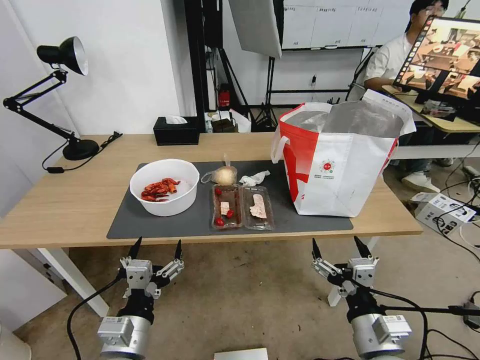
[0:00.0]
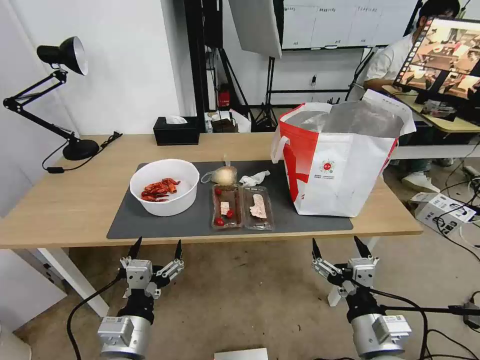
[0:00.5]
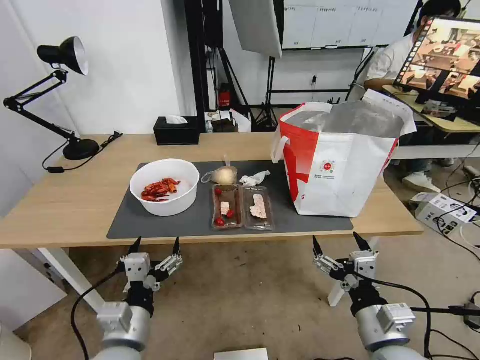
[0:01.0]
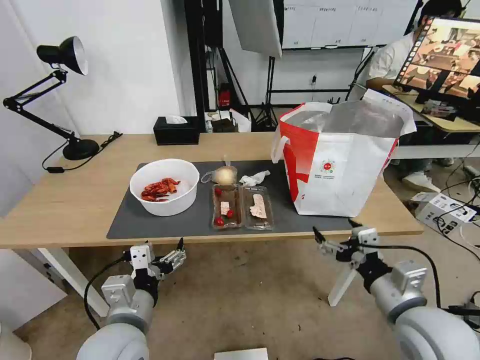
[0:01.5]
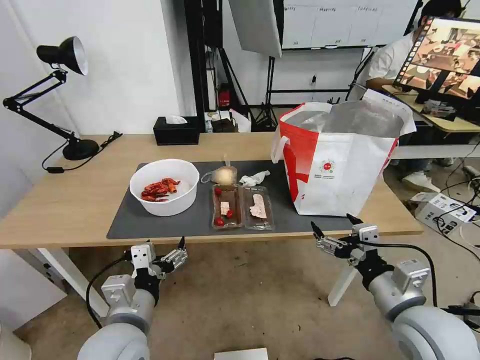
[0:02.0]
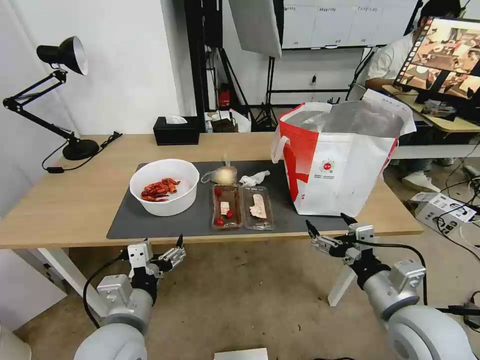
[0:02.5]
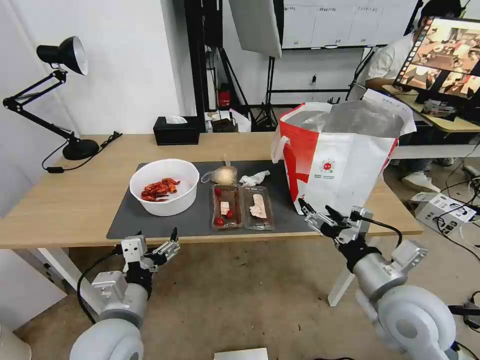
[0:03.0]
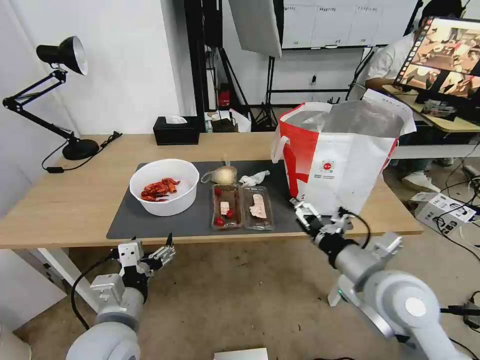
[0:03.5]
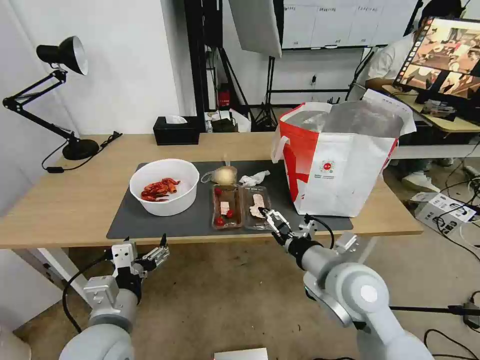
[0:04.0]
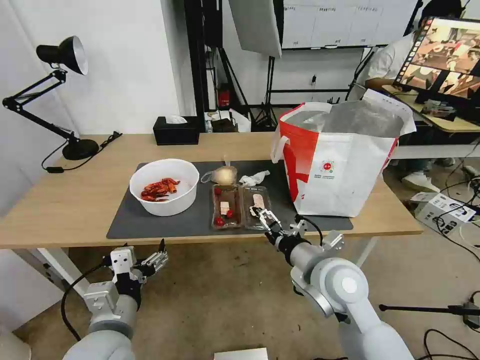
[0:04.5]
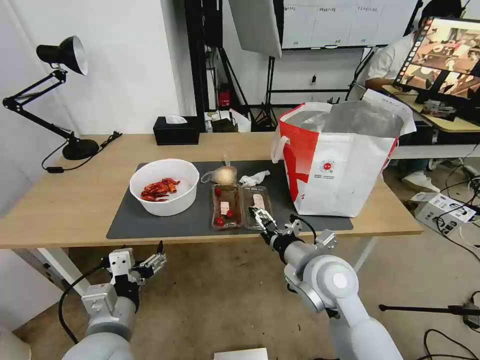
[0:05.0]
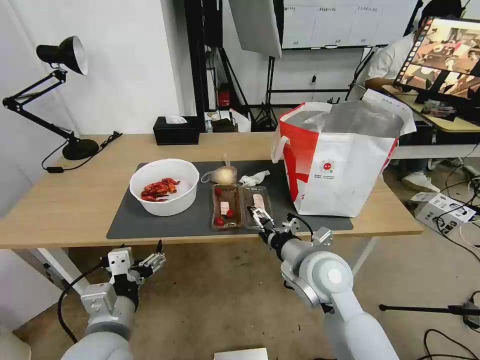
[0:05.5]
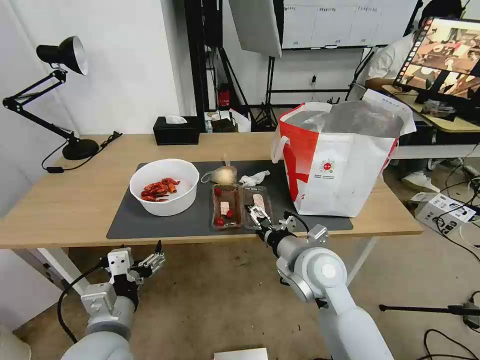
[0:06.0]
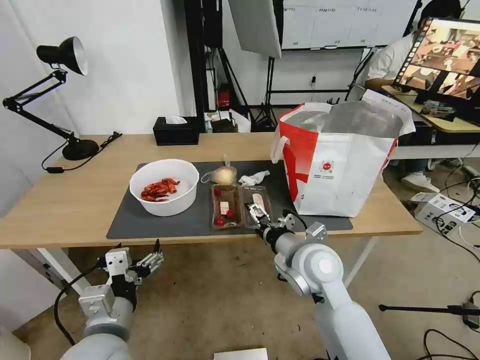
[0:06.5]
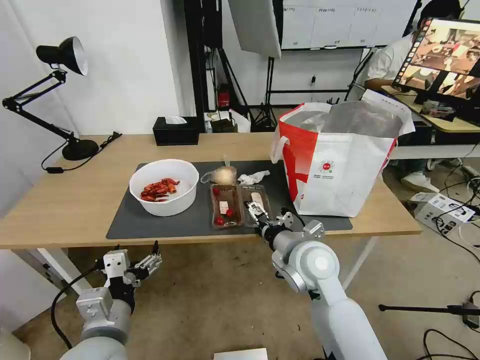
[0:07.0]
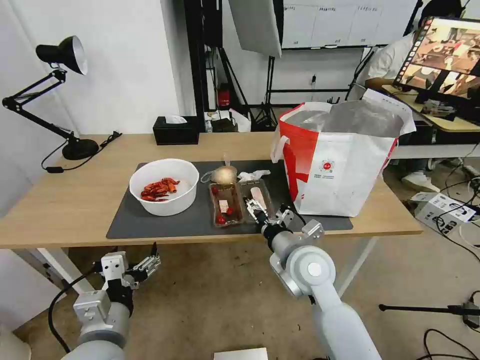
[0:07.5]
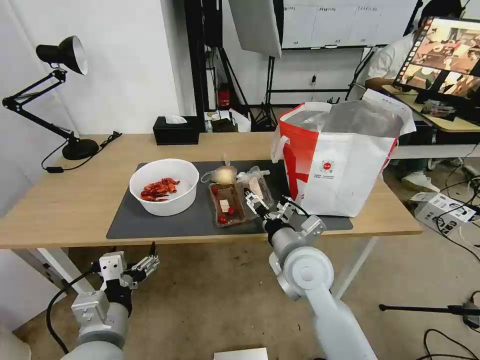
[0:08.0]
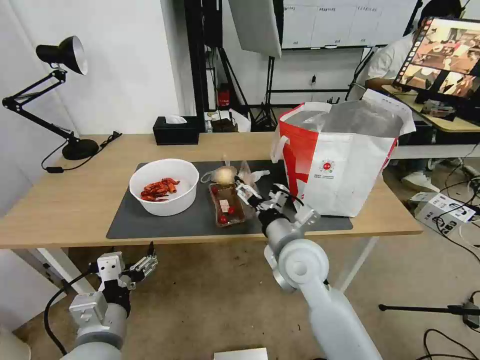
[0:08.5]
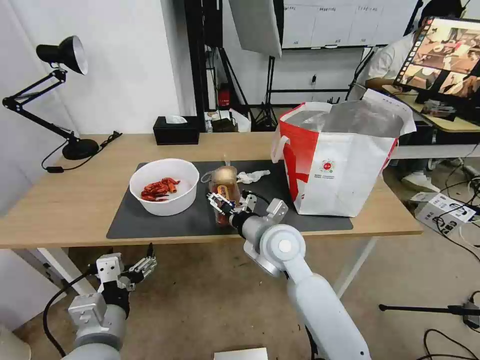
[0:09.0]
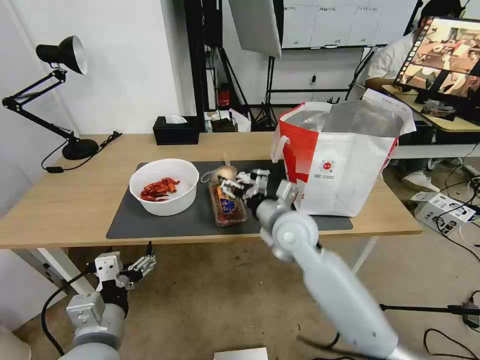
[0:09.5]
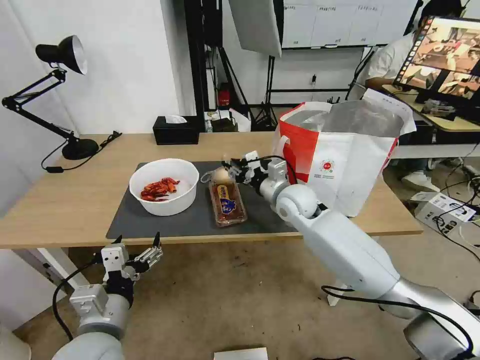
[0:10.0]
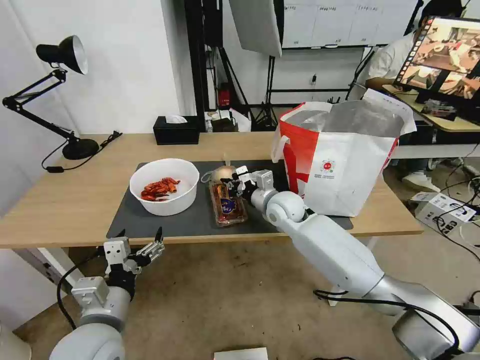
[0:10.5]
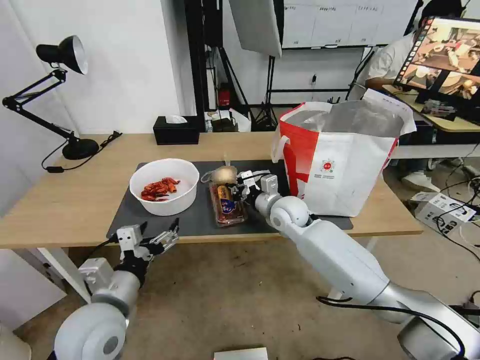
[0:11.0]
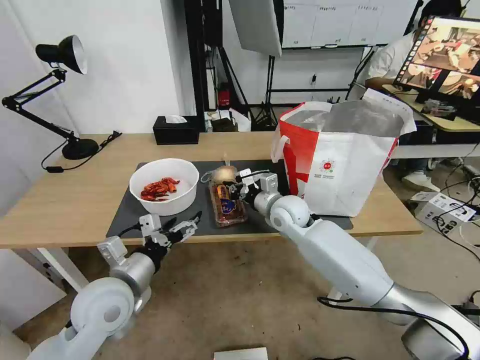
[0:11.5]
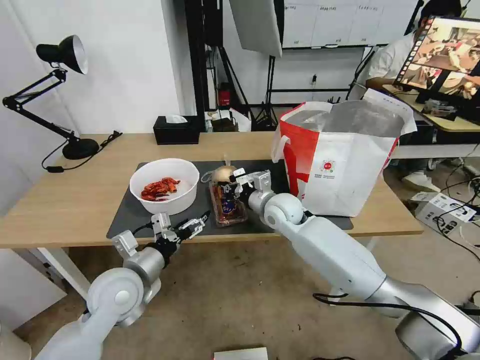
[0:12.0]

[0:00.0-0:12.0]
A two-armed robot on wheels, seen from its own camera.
Task of the whole recording: Pick up the trash from the table and place it into the takeout bag.
0:02.0 to 0:04.0: The right gripper goes roughly 10 cm to the left and forward.
0:04.0 to 0:06.0: The right gripper changes place by approximately 5 cm.
0:08.0 to 0:10.0: The right gripper heads forward, covering roughly 15 cm, and closes up.
0:10.0 to 0:12.0: The left gripper moves forward, approximately 10 cm.

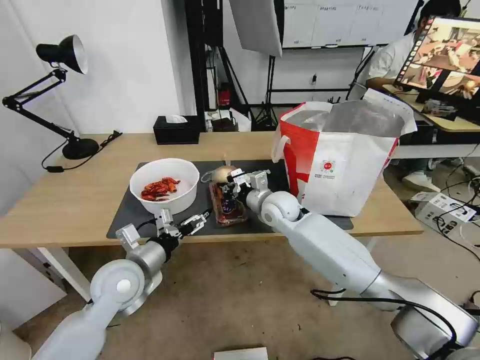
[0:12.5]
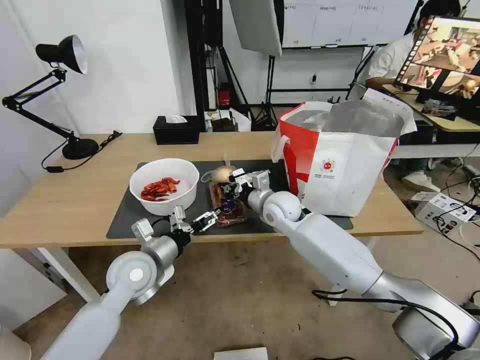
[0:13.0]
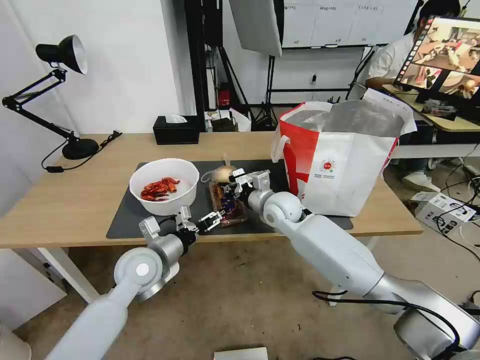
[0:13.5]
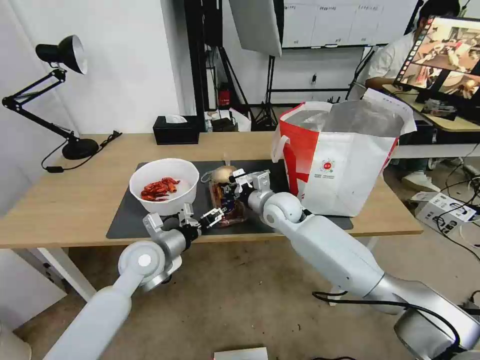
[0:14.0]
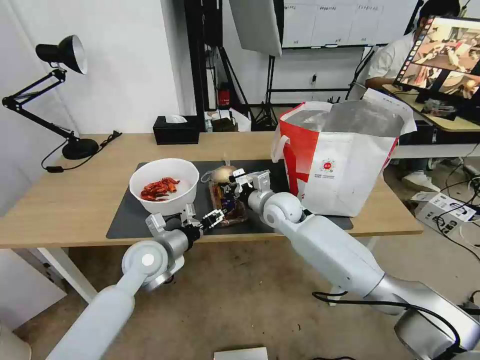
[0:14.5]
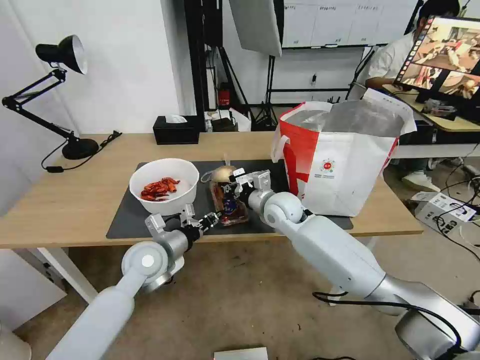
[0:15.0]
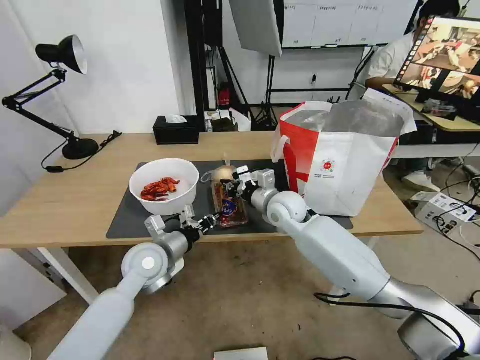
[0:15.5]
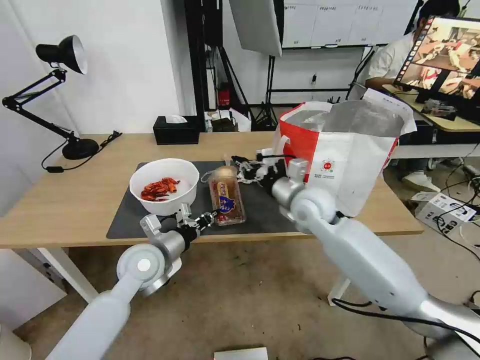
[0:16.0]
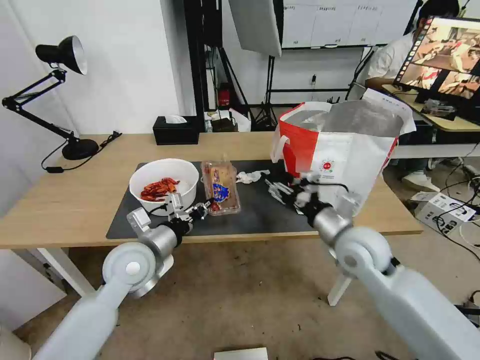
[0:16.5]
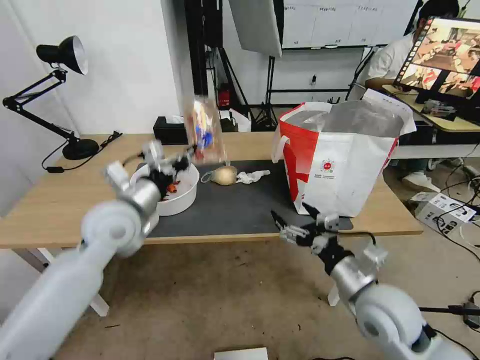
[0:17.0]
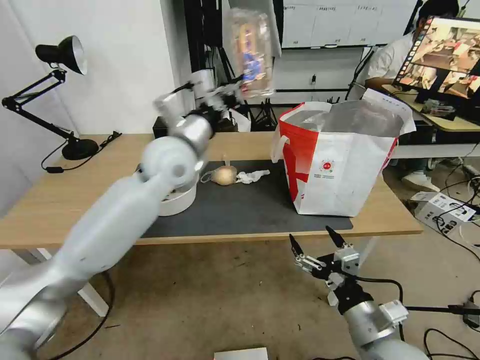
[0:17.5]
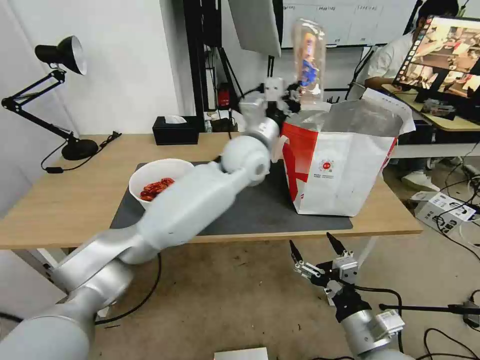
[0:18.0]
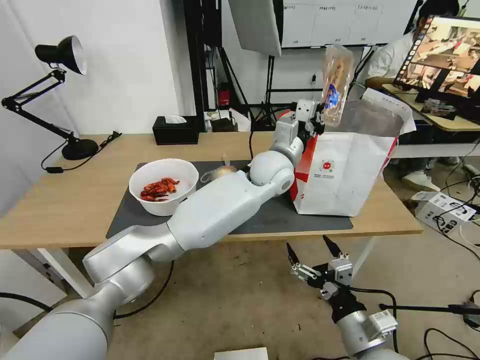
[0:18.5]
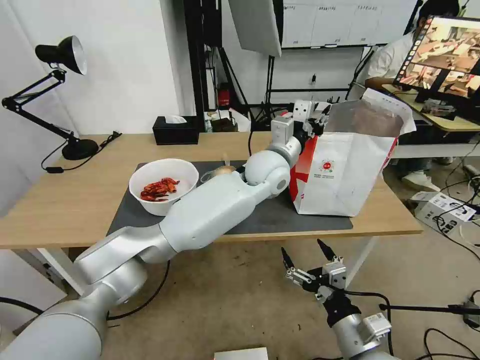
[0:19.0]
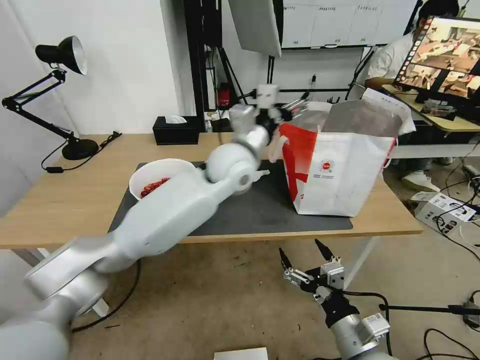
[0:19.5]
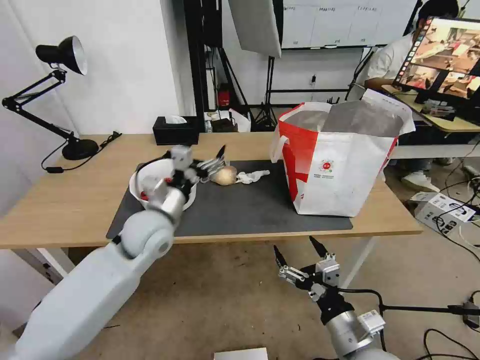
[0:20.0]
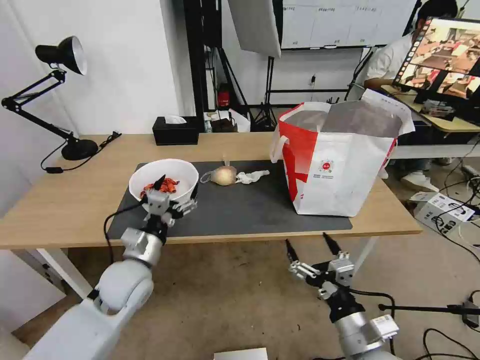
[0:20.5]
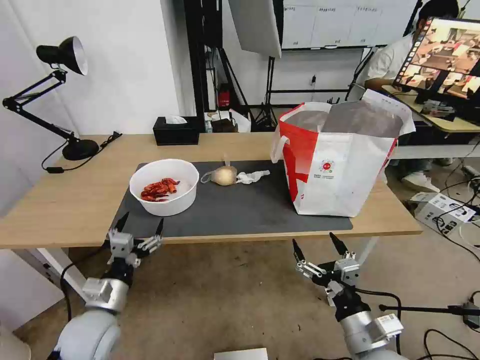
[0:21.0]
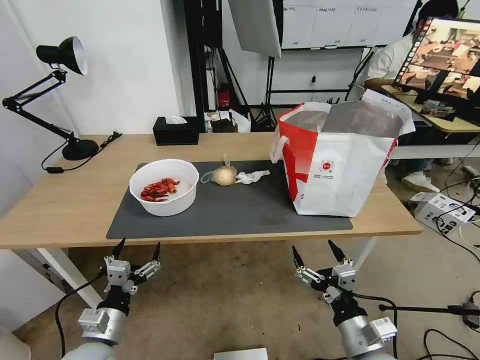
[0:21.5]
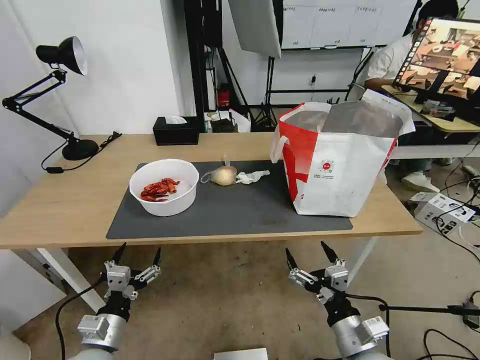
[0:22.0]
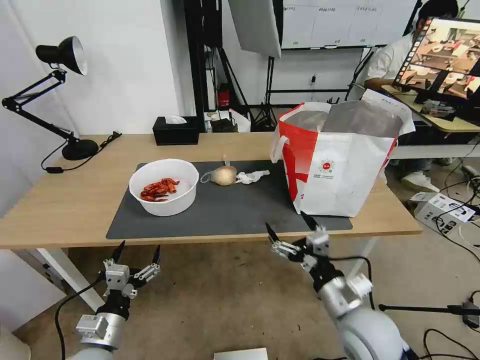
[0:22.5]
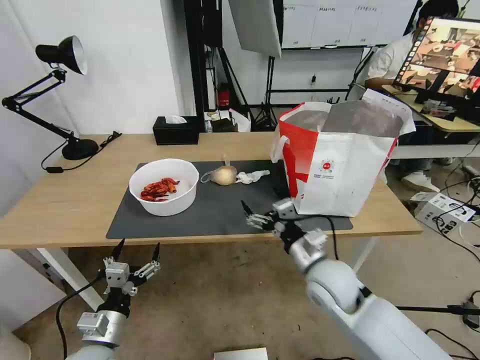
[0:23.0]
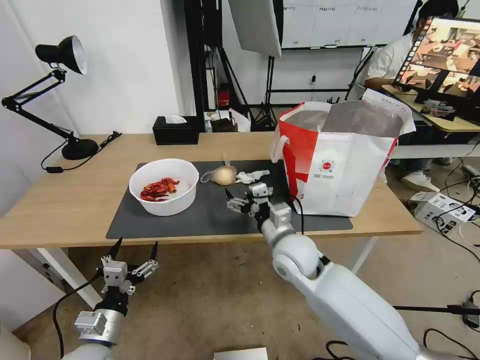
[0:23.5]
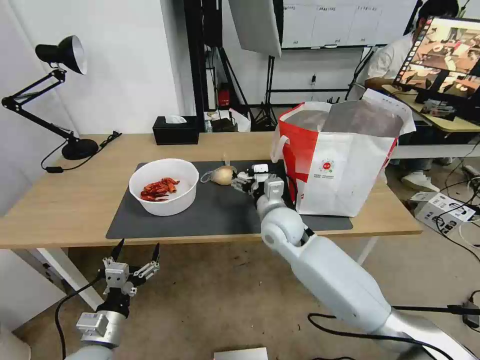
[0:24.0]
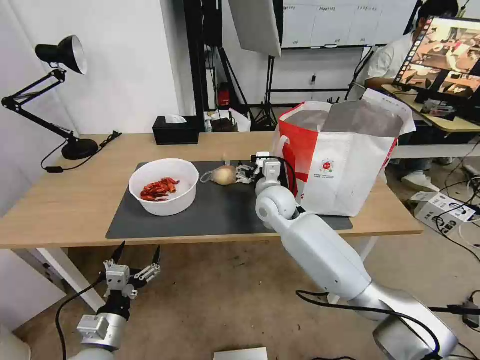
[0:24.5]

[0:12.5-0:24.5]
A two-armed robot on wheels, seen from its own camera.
Task of the whole recording: Pick up the trash from the table and place it into the takeout bag.
0:12.5 to 0:14.5: The left gripper travels forward by roughly 5 cm.
0:14.5 to 0:16.5: The left gripper shifts by approximately 5 cm, and closes; the right gripper is displaced backward and to the right by roughly 20 cm, and opens.
0:16.5 to 0:18.5: The right gripper moves backward and downward, roughly 20 cm. The left gripper travels to the right and forward by roughly 35 cm.
0:18.5 to 0:20.5: The left gripper heads to the left, backward and downward, covering about 40 cm, and opens up.
0:20.5 to 0:22.5: The left gripper travels backward, downward and to the left by some 20 cm. Meanwhile the right gripper goes some 5 cm forward.
0:22.5 to 0:24.5: The right gripper goes about 30 cm forward and to the left.

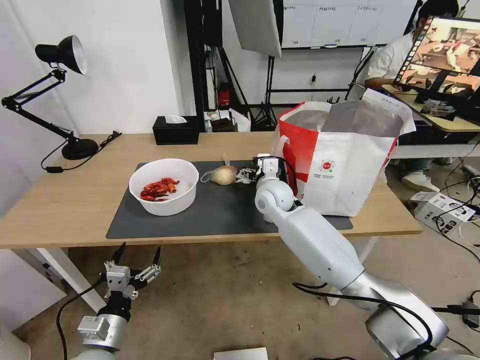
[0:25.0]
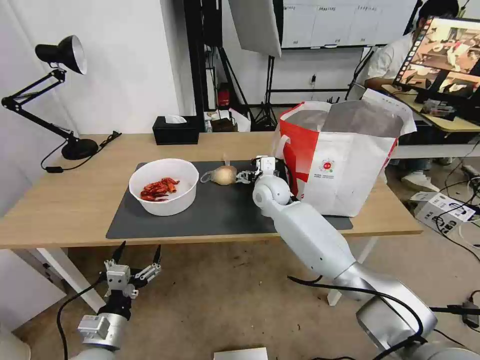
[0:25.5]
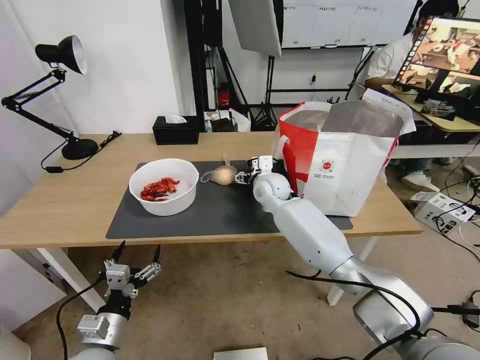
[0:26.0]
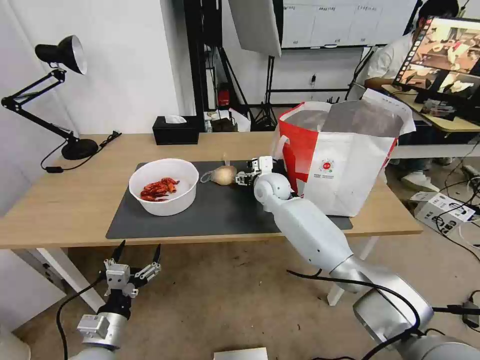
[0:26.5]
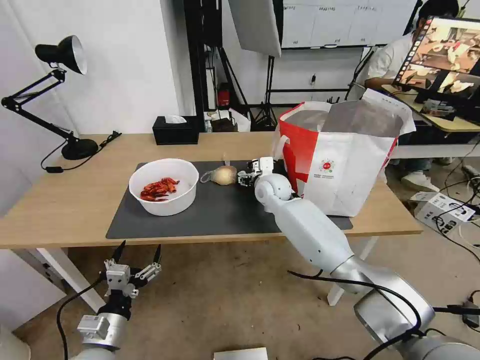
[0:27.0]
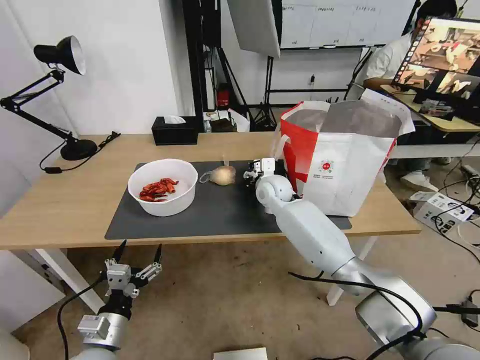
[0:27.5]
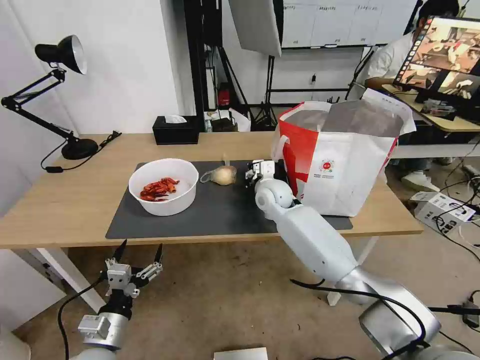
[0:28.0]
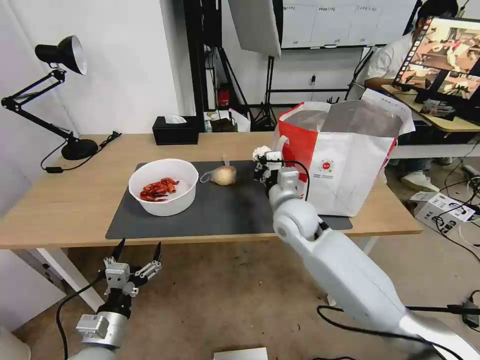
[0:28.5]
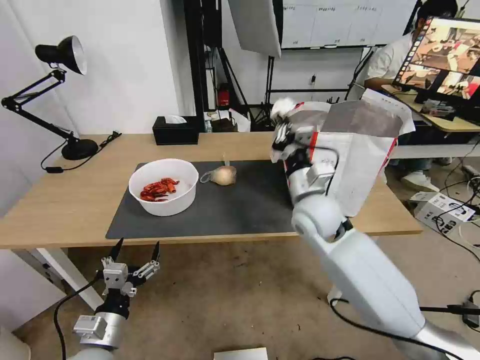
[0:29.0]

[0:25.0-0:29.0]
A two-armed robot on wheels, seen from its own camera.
Task of the whole recording: Pick up the trash from the table and place it into the takeout bag.
0:25.0 to 0:27.0: The grippers stay close to where they were, moving slightly.
0:27.0 to 0:29.0: The right gripper is displaced backward by some 15 cm, and closes its fingers.
